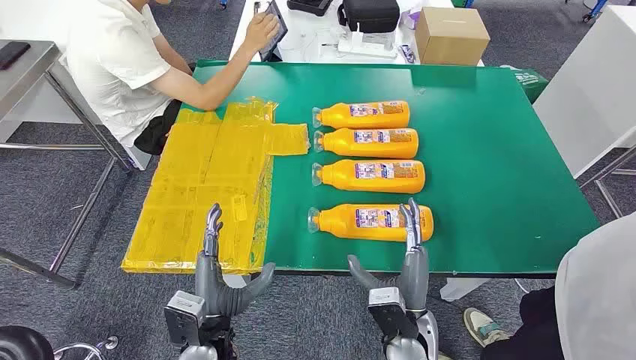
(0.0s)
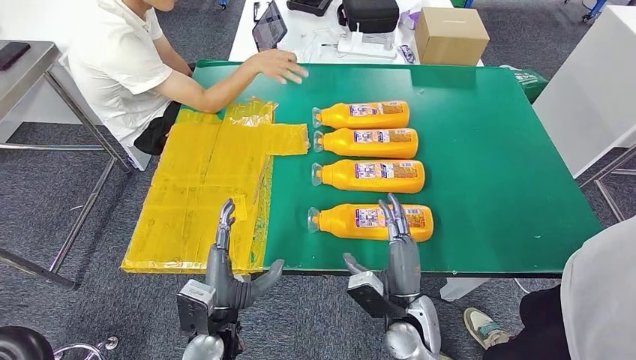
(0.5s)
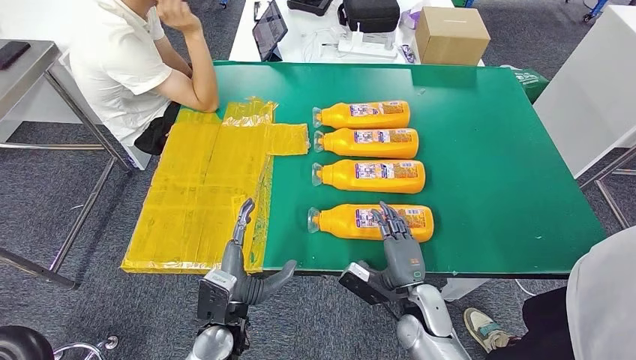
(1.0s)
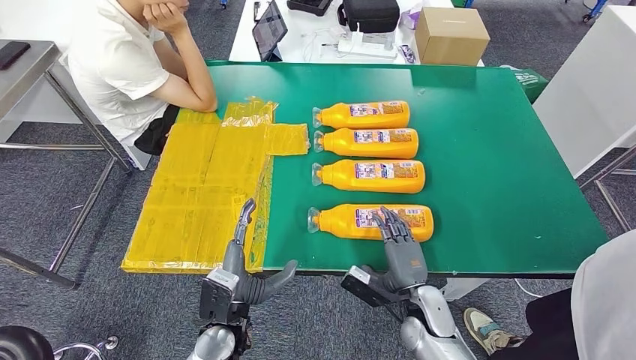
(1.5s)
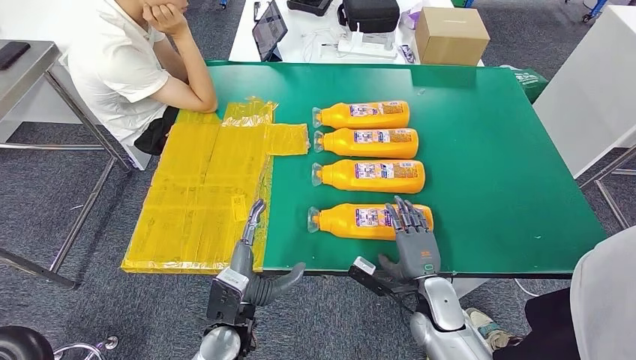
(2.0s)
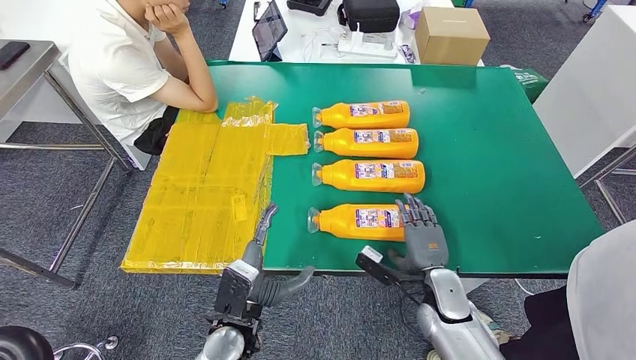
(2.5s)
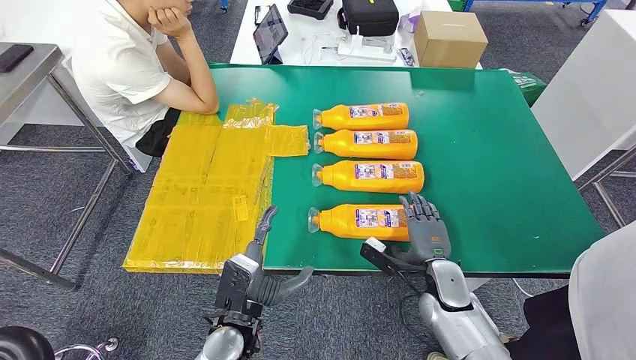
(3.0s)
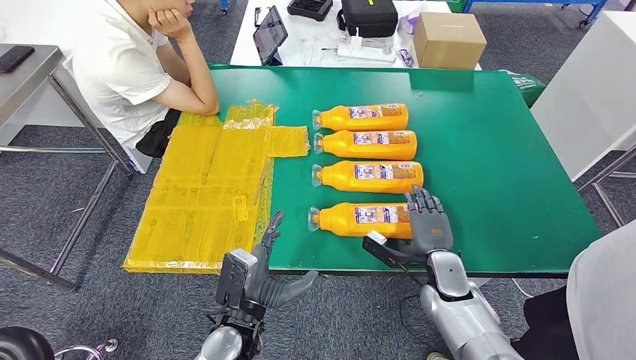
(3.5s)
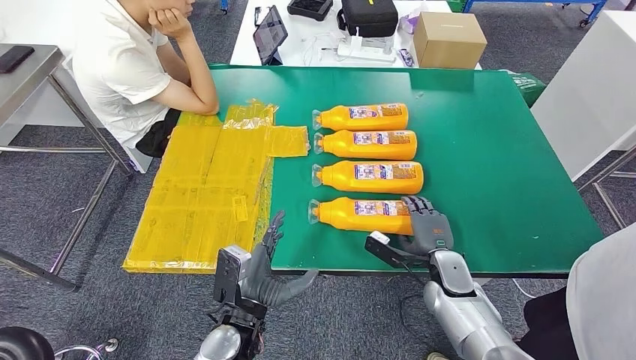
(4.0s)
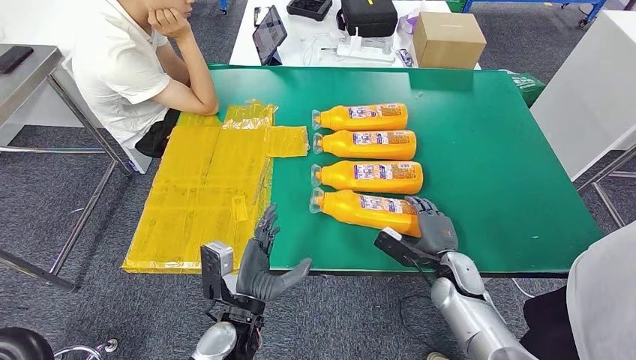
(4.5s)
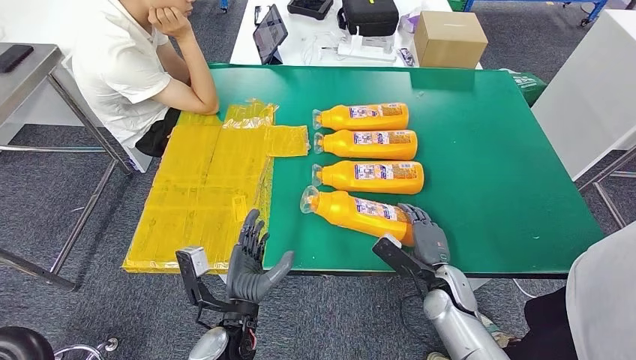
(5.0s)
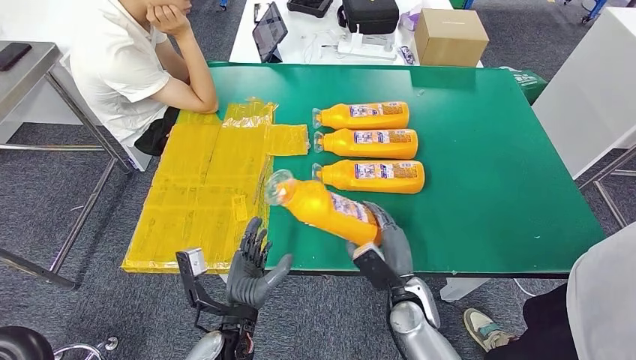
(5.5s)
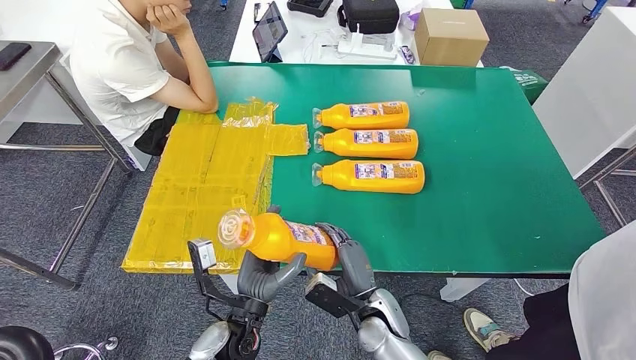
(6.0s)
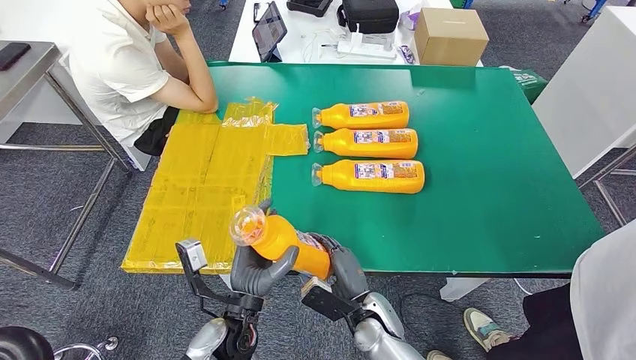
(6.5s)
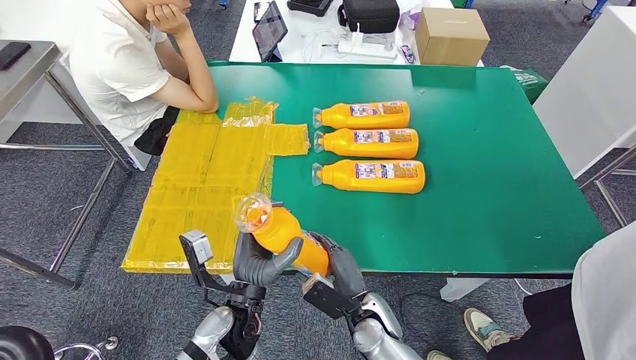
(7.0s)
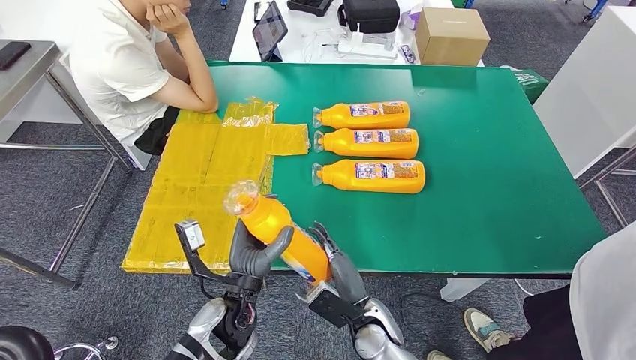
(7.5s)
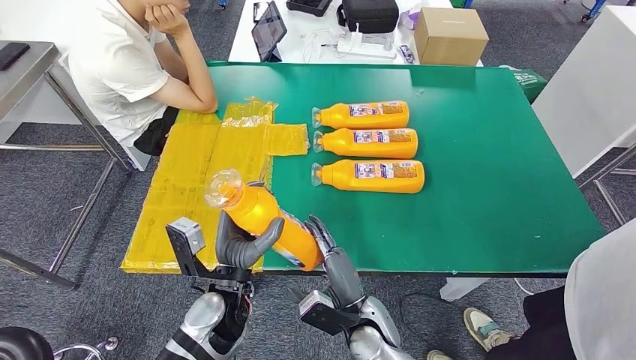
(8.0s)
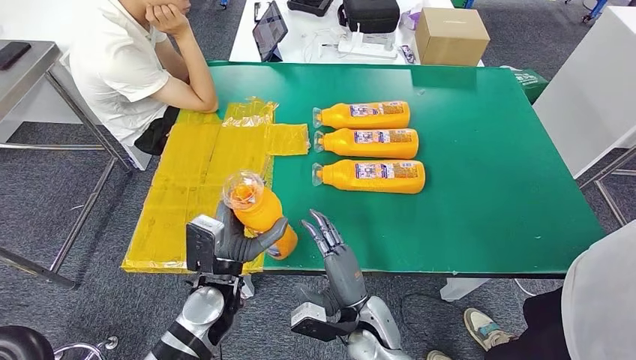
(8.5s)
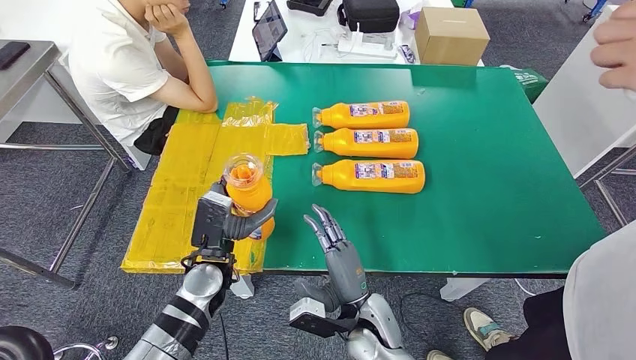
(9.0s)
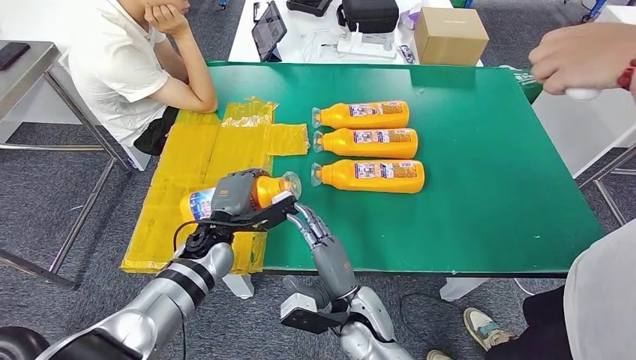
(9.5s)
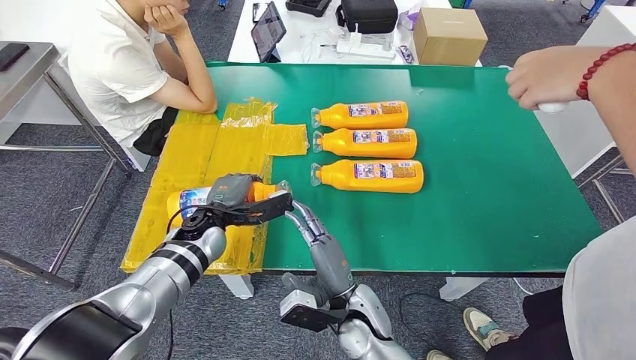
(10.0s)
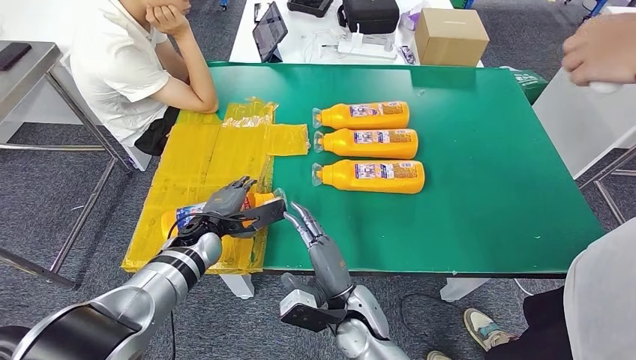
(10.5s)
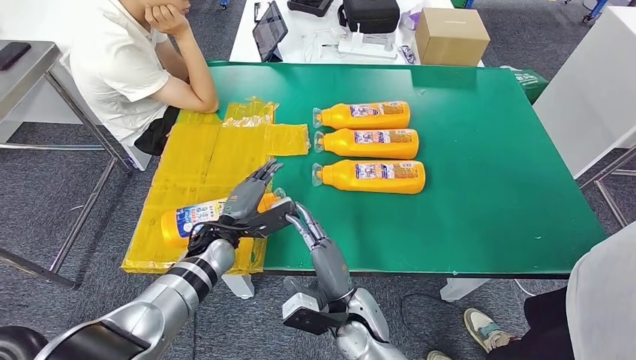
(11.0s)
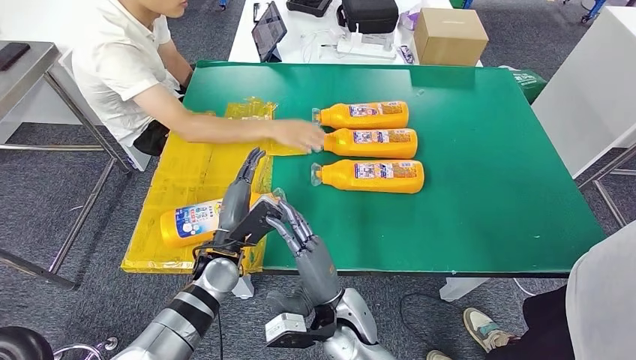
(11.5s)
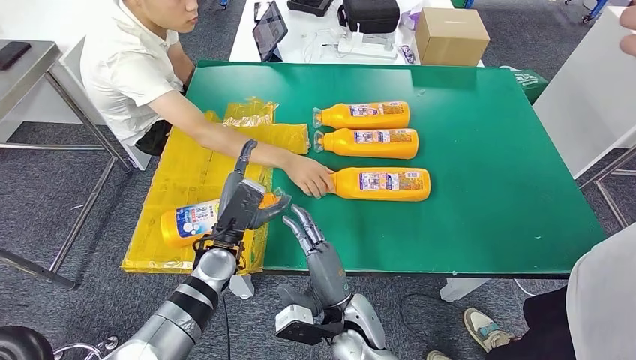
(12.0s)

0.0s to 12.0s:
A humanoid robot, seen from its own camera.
Step, 0.0s to 6.5s: Take the bottle from the table.
Step, 7.0s to 10.0s: Flip the bottle to face forward.
2.0s to 4.0s: The right hand heads forward, covering roughly 5 cm.
4.0s to 6.0s: The right hand shifts about 15 cm to the left and backward.
6.0s to 8.0s: The left hand shifts by approximately 5 cm.
8.0s to 10.0s: The left hand goes roughly 15 cm forward and to the left.

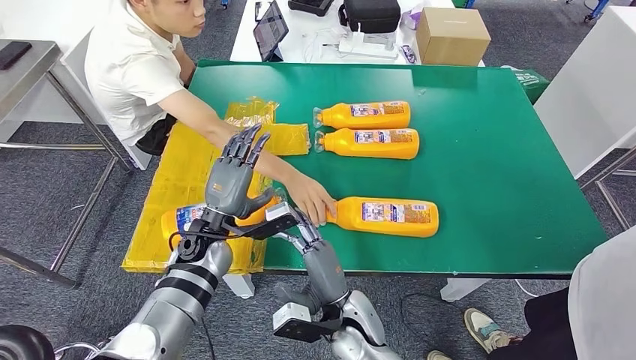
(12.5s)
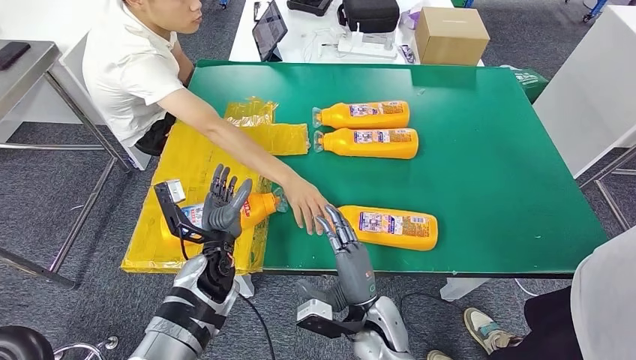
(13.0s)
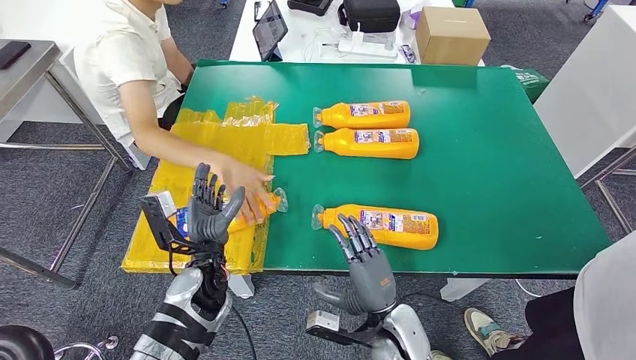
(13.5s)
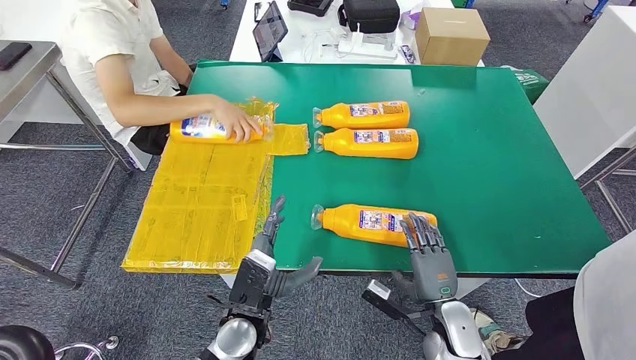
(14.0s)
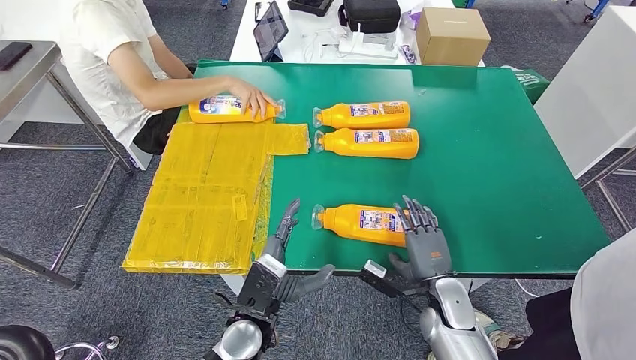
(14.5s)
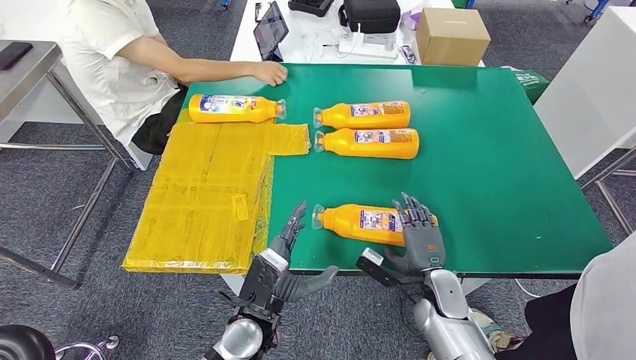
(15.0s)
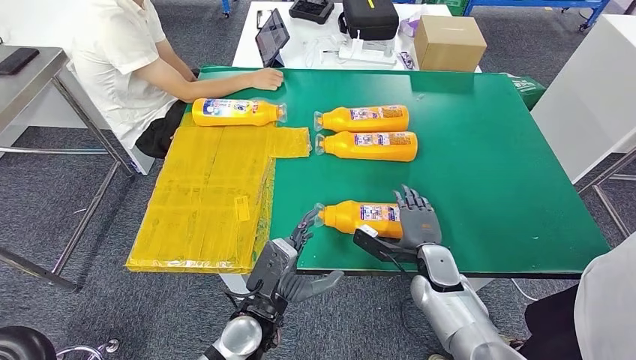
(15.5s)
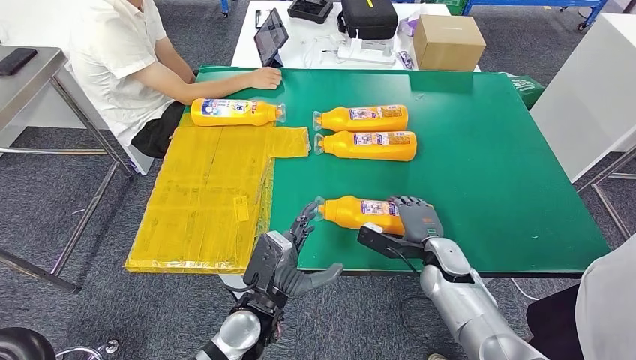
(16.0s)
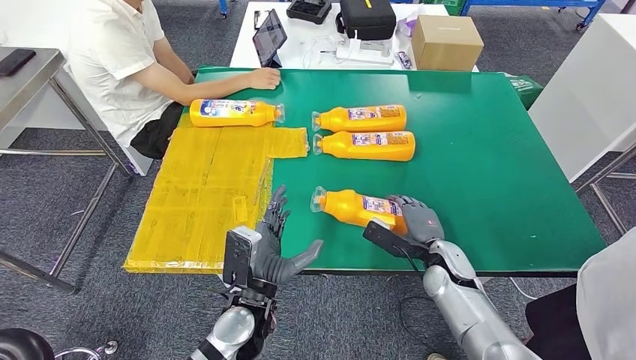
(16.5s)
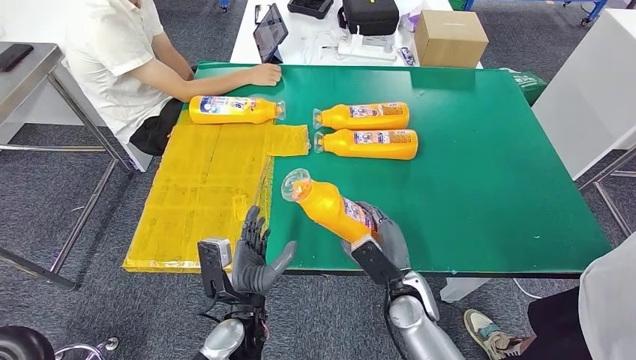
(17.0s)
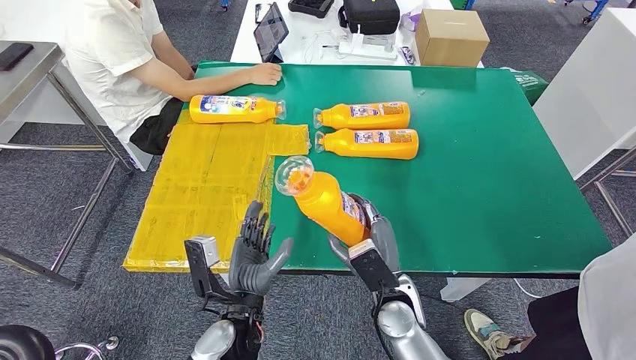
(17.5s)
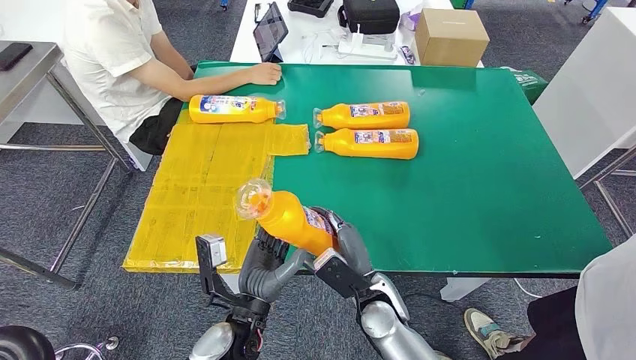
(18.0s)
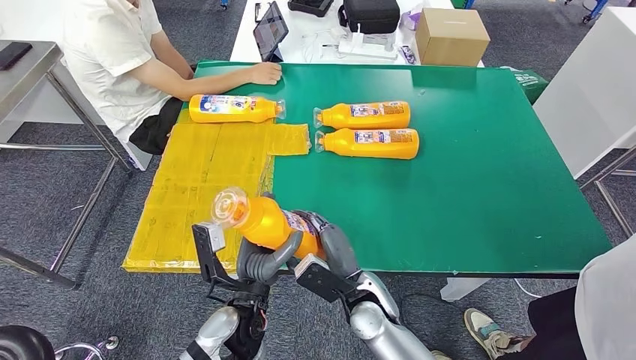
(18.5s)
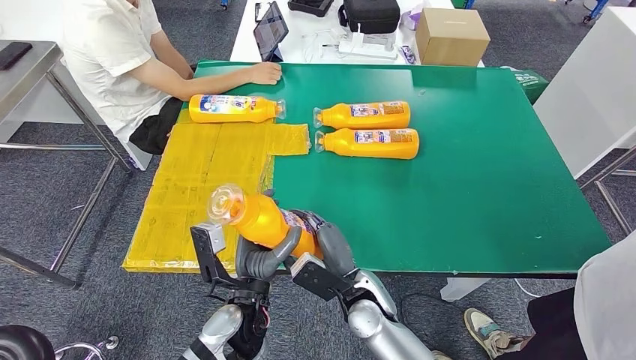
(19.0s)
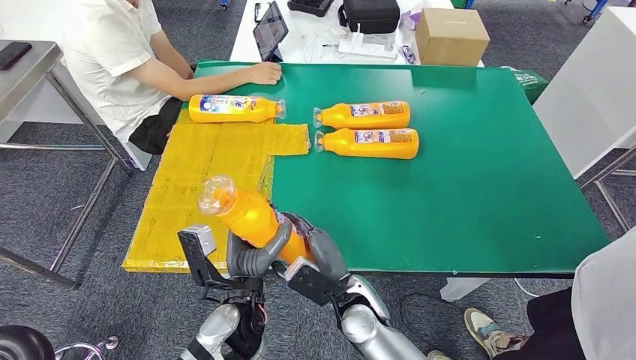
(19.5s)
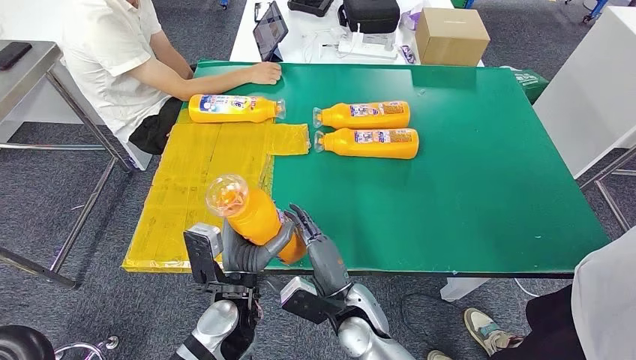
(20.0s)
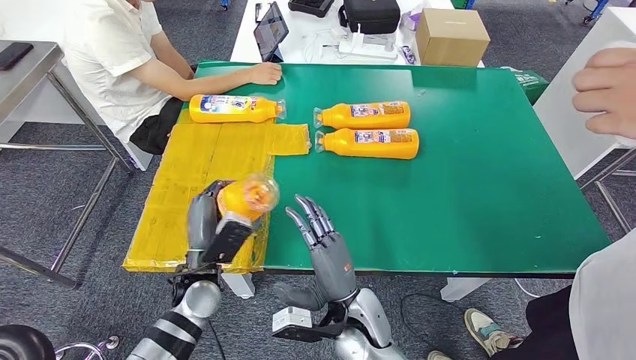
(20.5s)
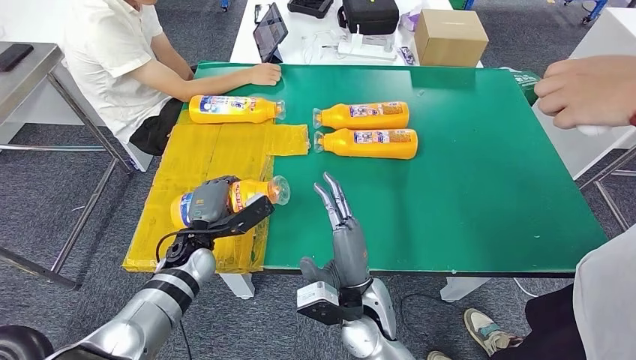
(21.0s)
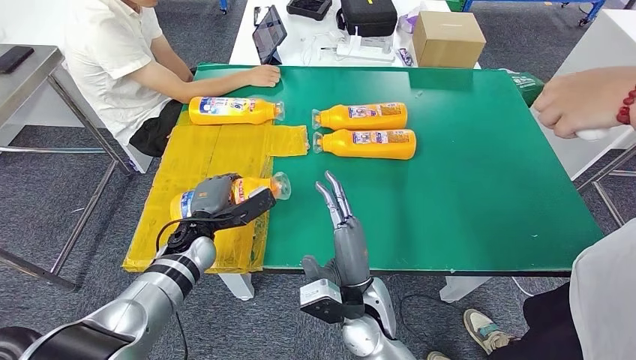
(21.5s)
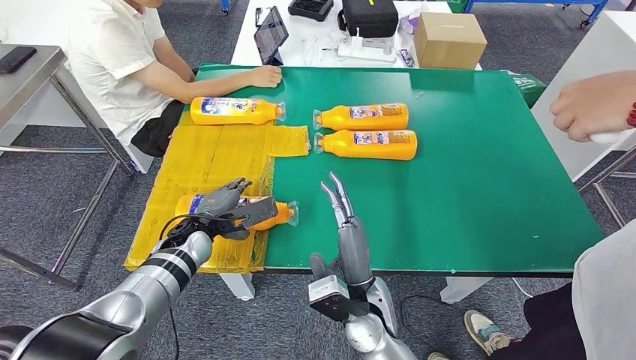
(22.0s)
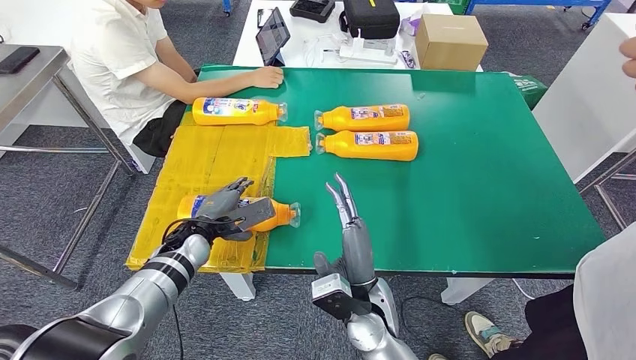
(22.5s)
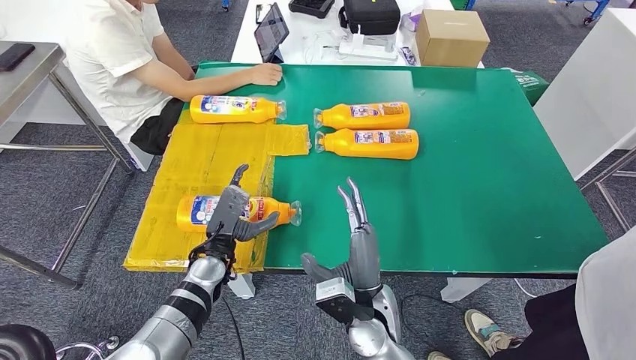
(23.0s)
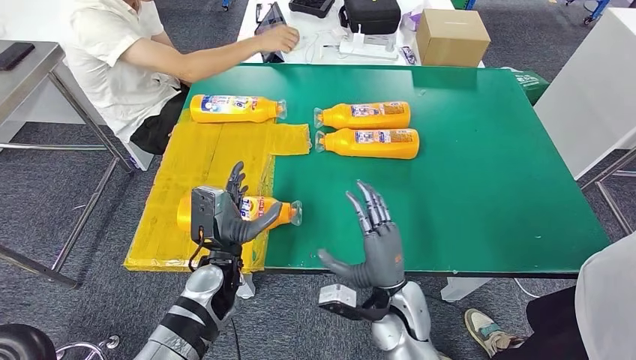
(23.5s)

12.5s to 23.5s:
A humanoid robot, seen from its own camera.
Step, 12.5s to 15.5s: Pick up the bottle from the table.
Step, 20.0s to 22.0s: Flip the bottle to face forward.
